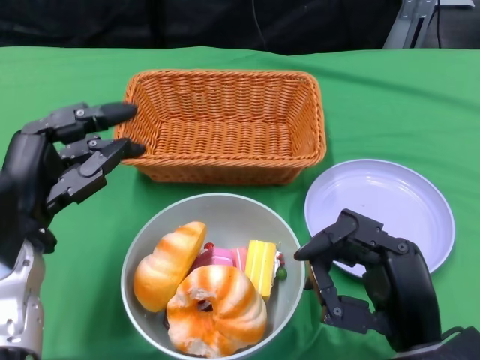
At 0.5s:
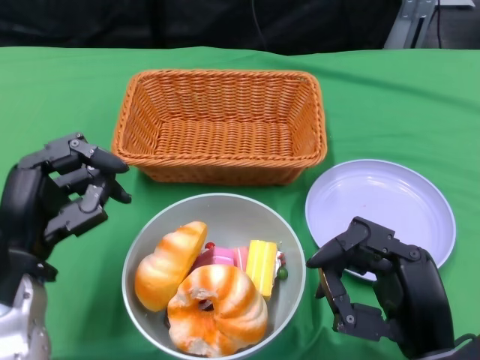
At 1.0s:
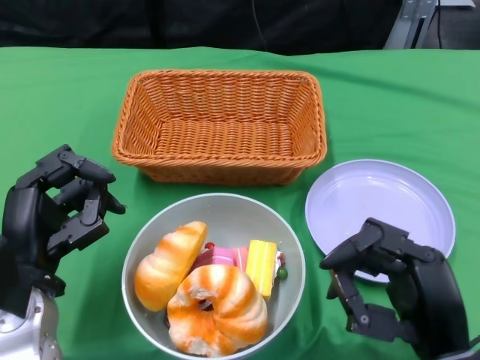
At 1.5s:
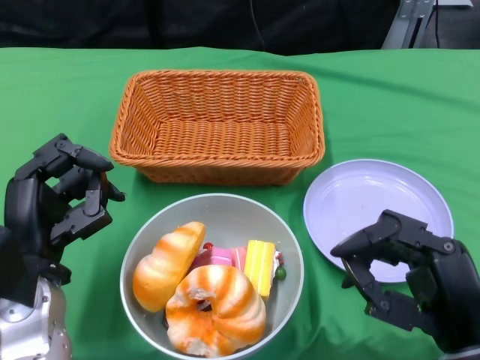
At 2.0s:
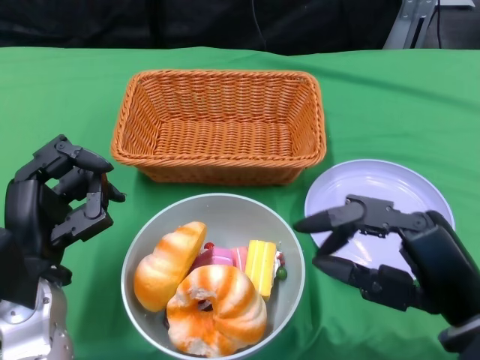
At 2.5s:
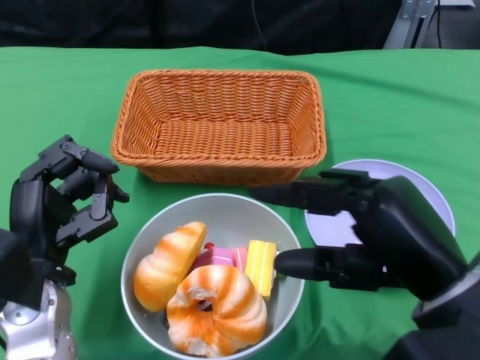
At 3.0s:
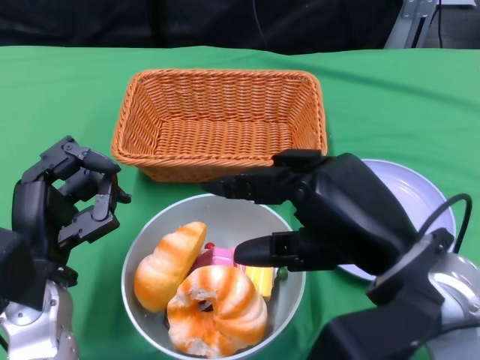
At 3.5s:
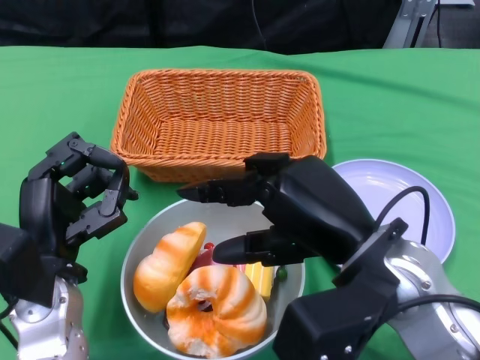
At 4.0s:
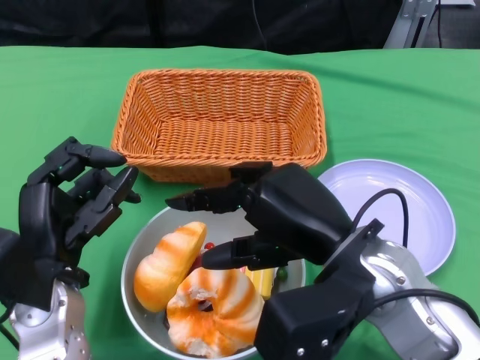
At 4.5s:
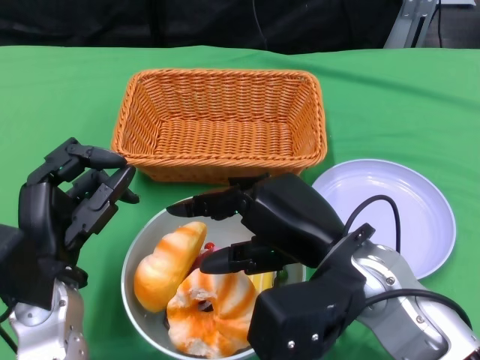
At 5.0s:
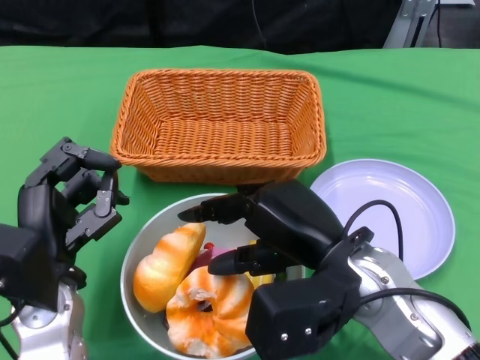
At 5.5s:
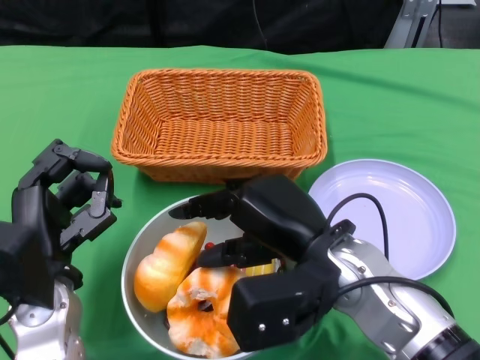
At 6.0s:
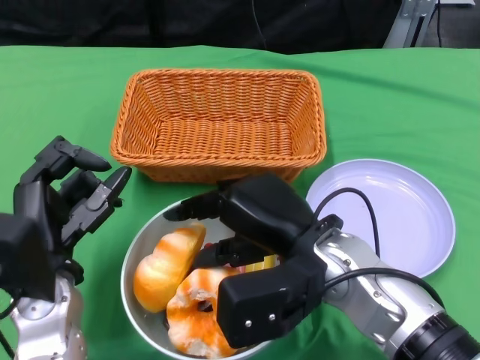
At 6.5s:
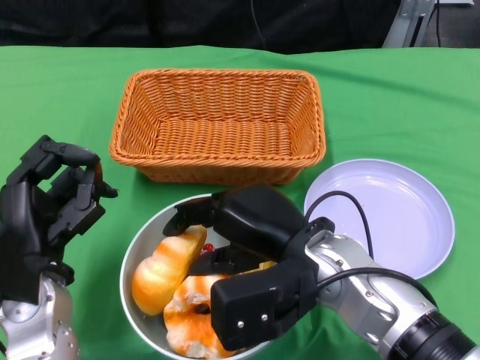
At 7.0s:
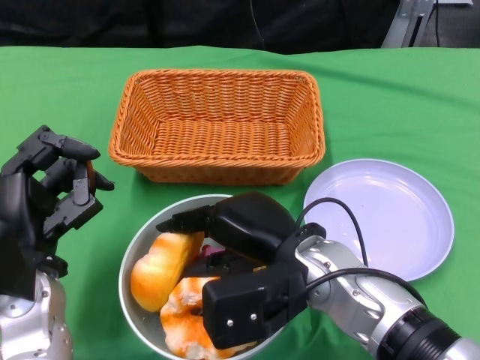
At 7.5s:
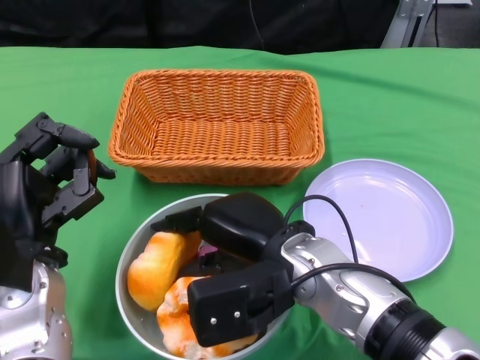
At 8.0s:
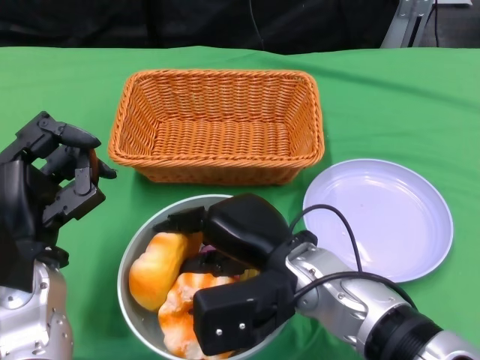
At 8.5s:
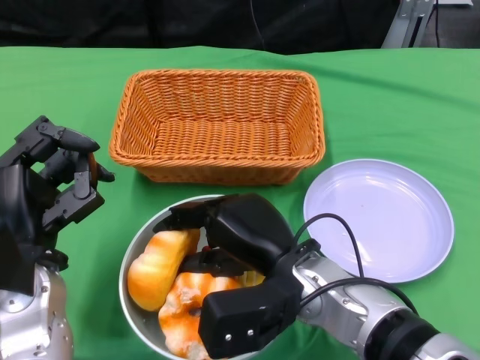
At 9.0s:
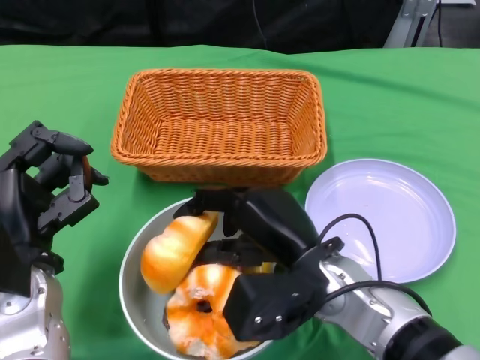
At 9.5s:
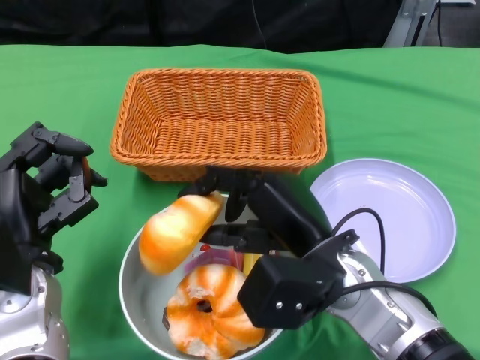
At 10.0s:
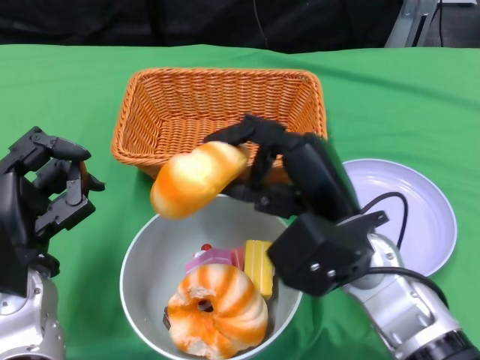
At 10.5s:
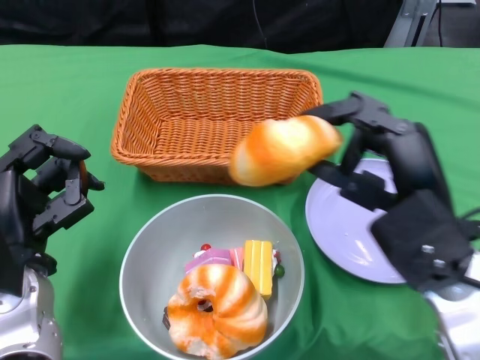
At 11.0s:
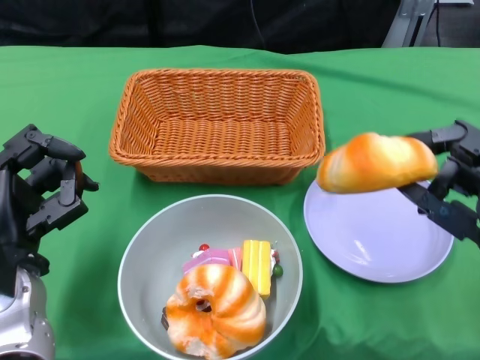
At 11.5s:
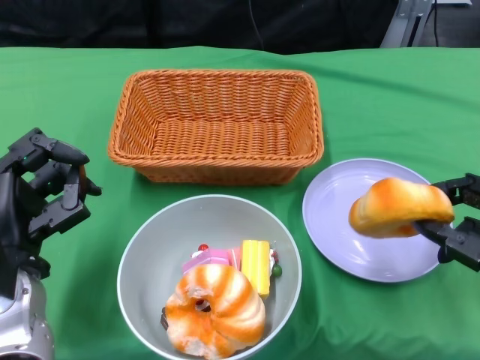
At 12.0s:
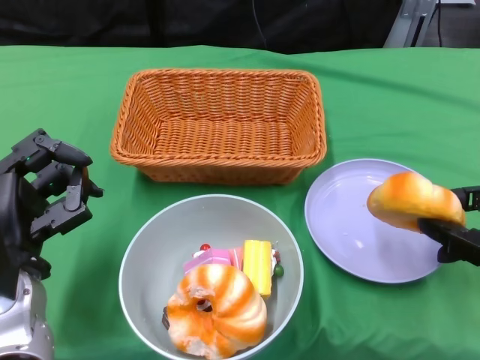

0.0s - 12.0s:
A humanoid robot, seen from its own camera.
0.0s - 2.0s: The left hand ends up approximately 5 cm from where it was, while the right hand ends up about 5 cm from where it was.
2.0s - 4.0s: The right hand goes about 10 cm to the left and forward.
4.0s - 6.0s: The right hand moves roughly 5 cm.
8.0s - 10.0s: The right hand goes roughly 5 cm to the right.
10.0s - 12.0s: The right hand shifts approximately 15 cm to the right.

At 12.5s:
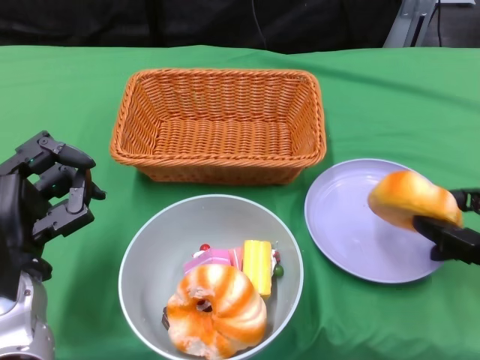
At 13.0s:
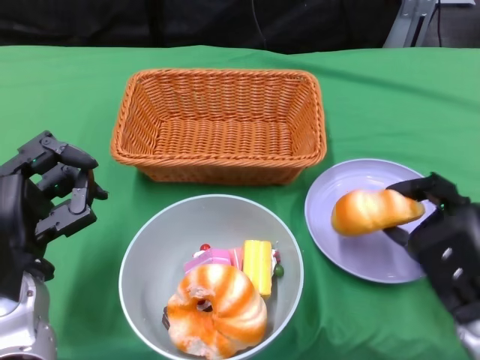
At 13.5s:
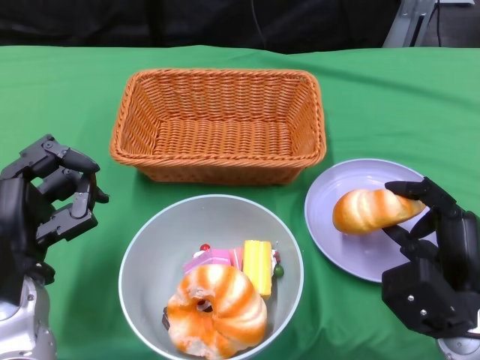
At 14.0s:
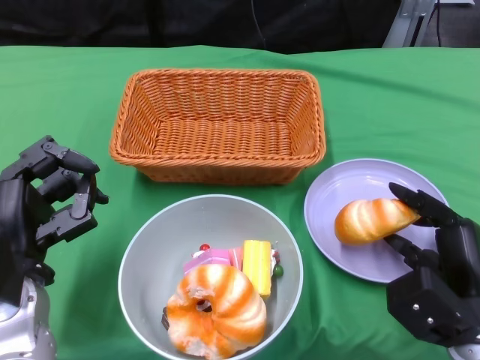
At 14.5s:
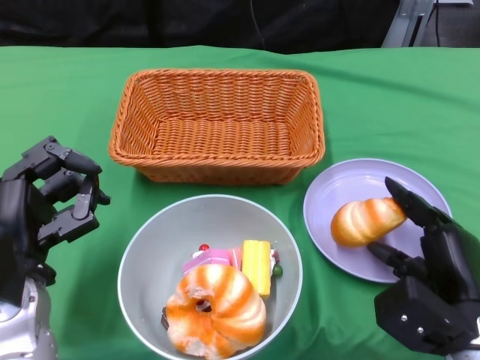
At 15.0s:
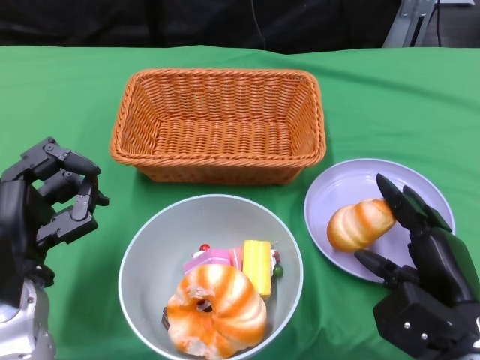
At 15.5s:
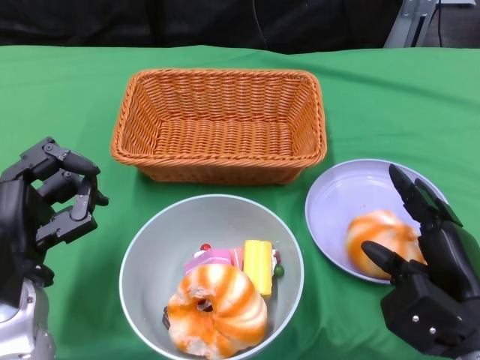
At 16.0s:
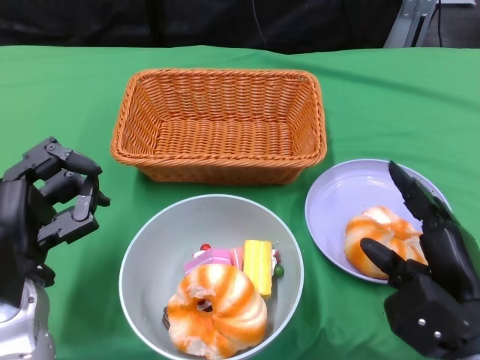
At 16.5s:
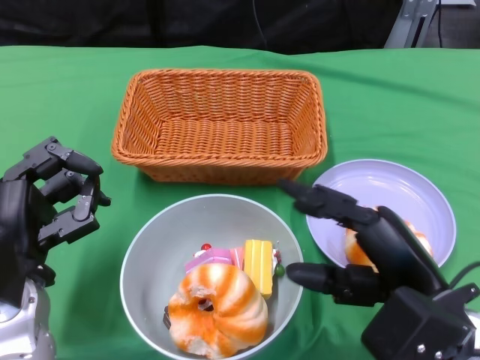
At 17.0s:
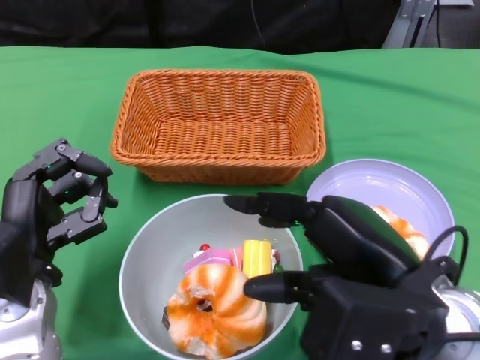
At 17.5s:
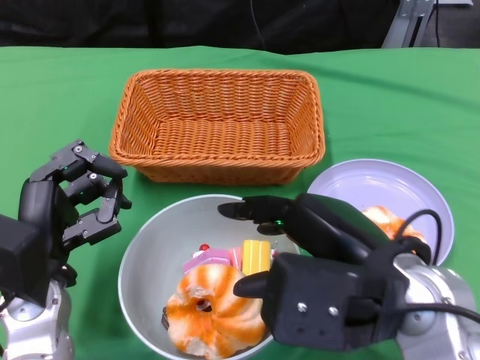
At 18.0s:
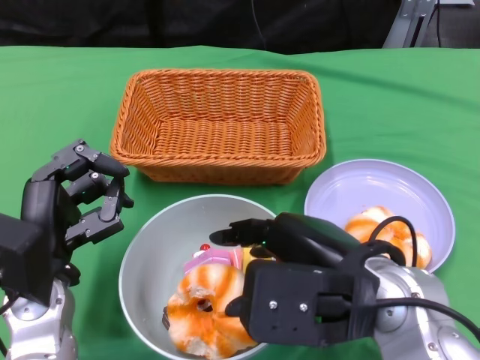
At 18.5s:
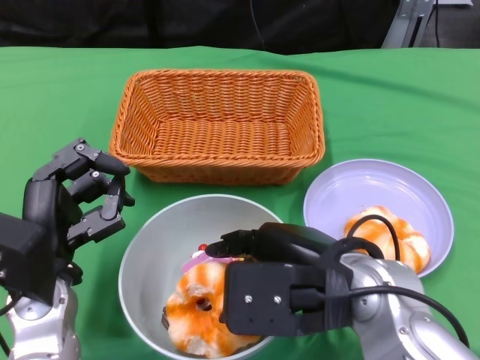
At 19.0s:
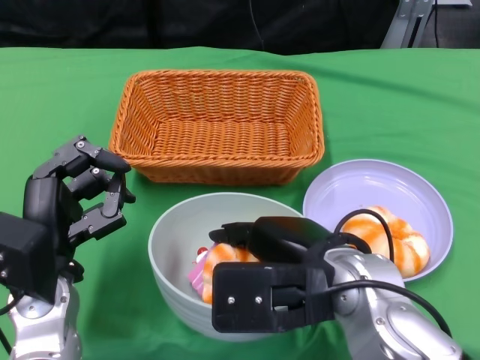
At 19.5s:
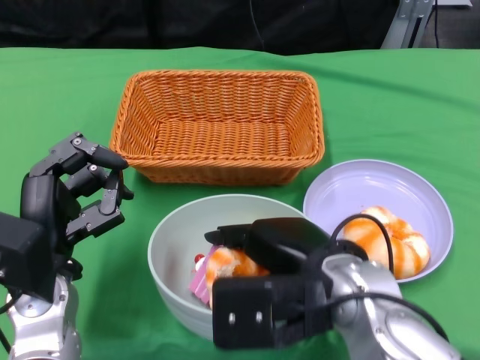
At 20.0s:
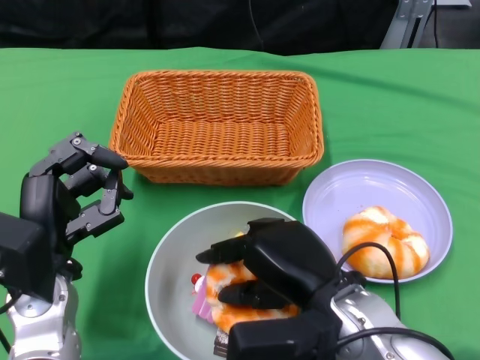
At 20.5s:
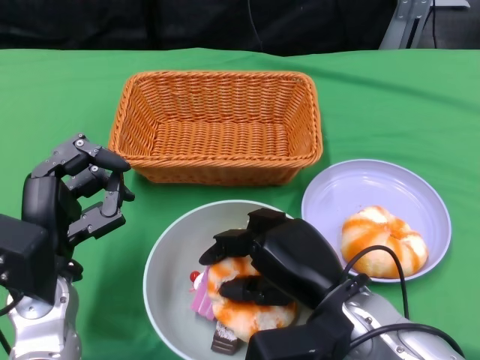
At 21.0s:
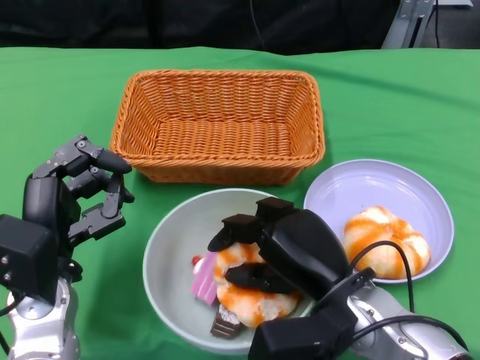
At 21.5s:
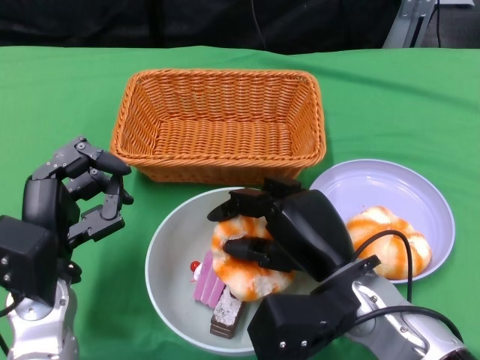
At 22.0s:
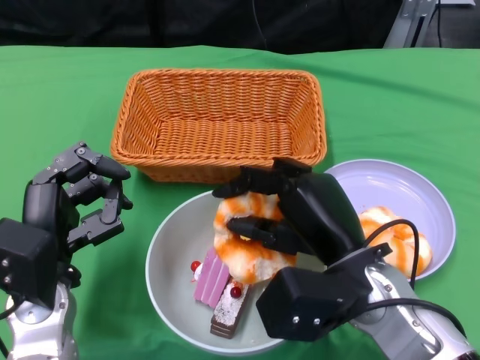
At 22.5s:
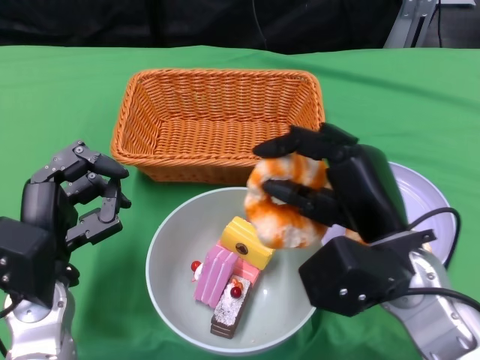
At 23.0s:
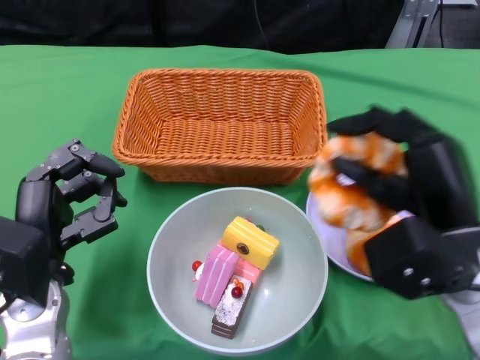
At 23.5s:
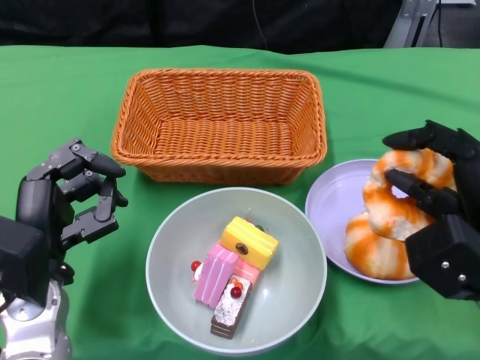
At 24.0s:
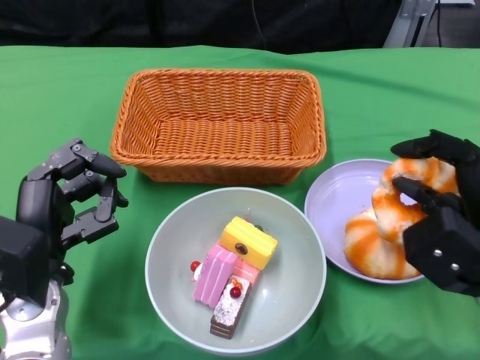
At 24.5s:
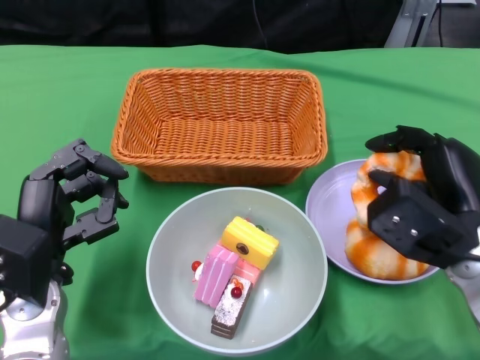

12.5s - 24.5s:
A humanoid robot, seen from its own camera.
12.5s - 14.5s: The right hand moves downward, some 10 cm.
14.5s - 16.5s: The right hand is displaced upward by roughly 10 cm.
16.5s - 18.5s: The right hand goes about 10 cm to the left.
18.5s - 20.5s: The right hand shifts approximately 10 cm downward.
20.5s - 22.5s: The right hand changes place by roughly 5 cm.
22.5s - 24.5s: The right hand is displaced to the right by some 10 cm.

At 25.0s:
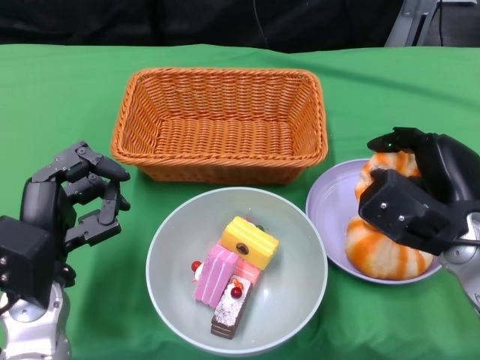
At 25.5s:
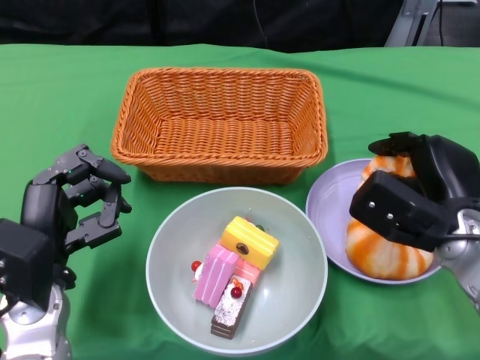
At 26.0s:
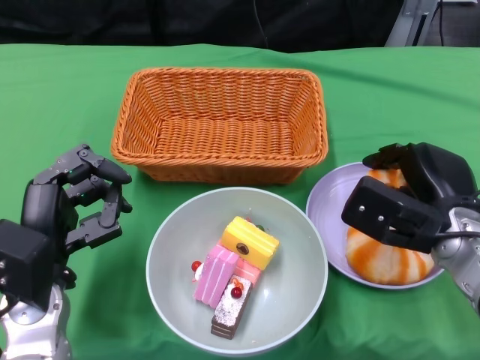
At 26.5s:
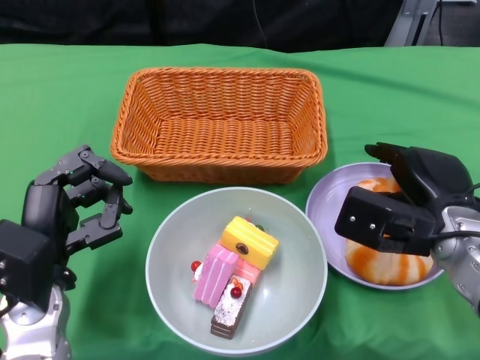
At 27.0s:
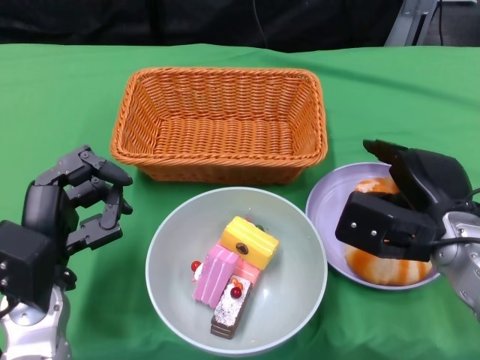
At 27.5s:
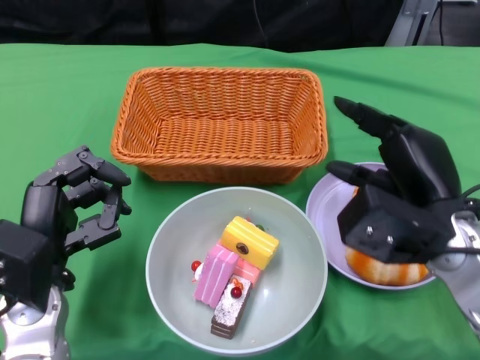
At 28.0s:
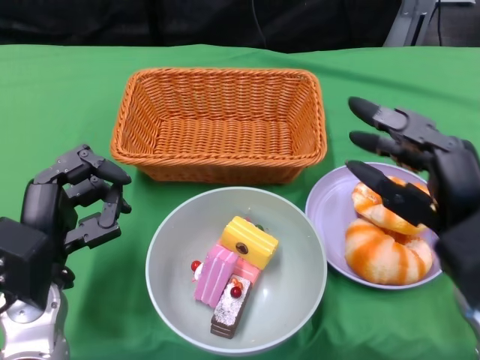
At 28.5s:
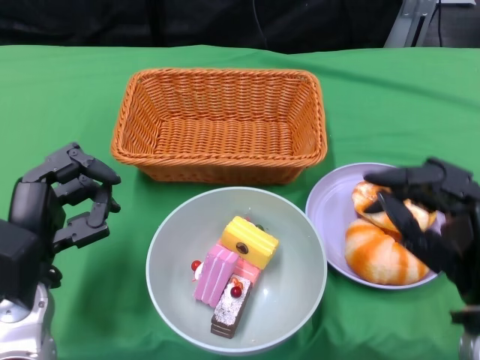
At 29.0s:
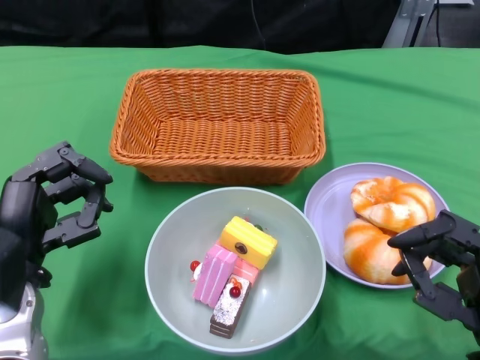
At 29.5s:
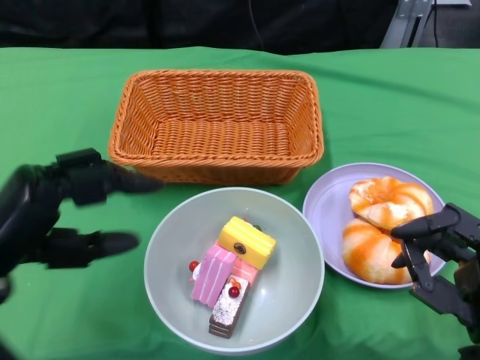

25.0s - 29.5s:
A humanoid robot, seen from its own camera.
Step, 25.0s - 27.5s: Pick up the bread with the right gripper and place it on the plate.
27.0s - 29.5s: The right hand heads backward, covering roughly 15 cm. The left hand travels upward by roughly 5 cm.
